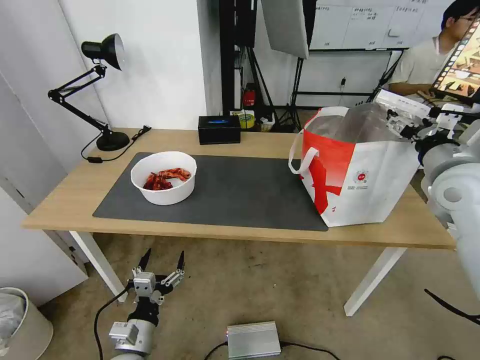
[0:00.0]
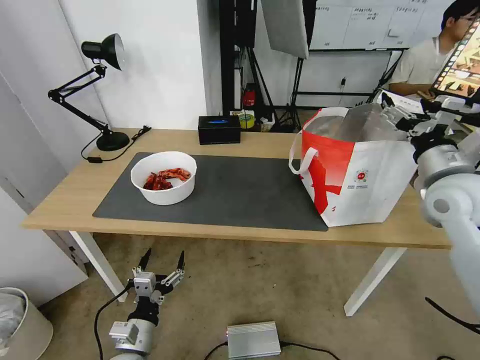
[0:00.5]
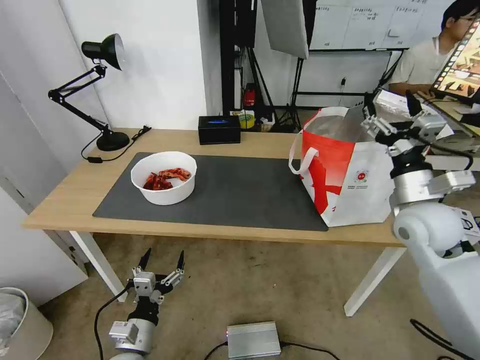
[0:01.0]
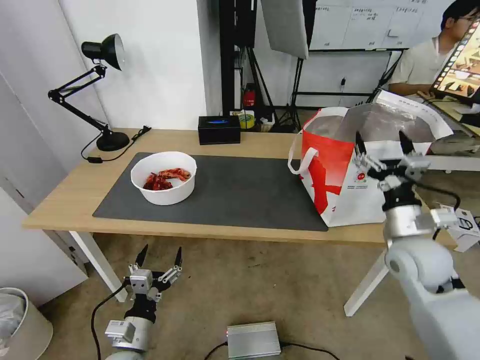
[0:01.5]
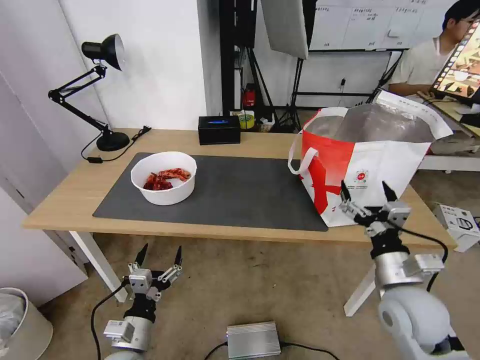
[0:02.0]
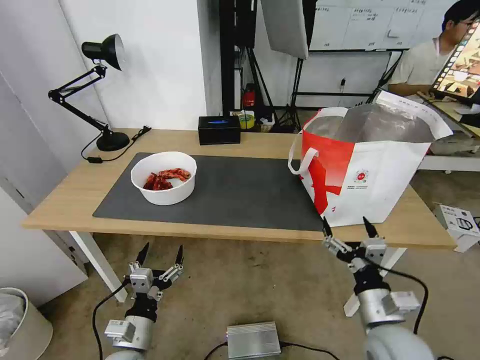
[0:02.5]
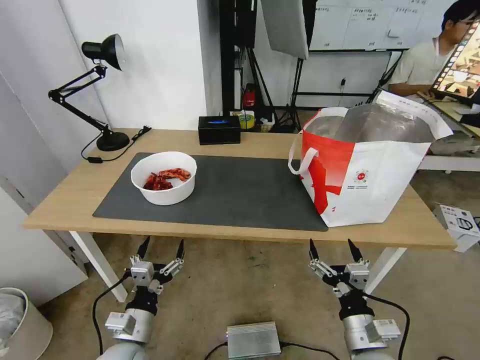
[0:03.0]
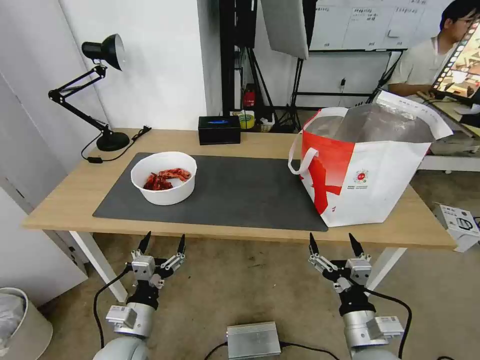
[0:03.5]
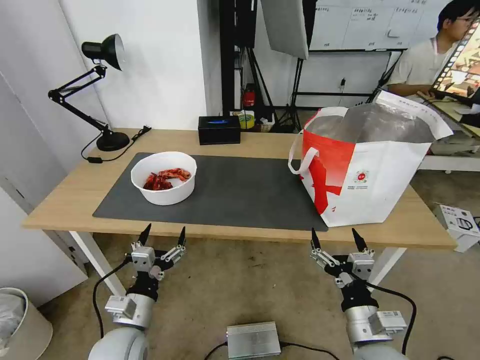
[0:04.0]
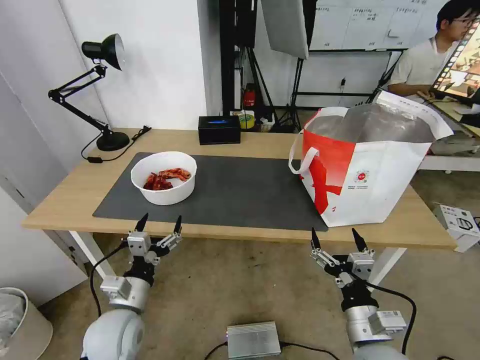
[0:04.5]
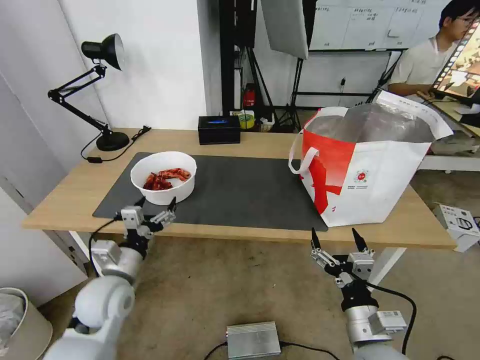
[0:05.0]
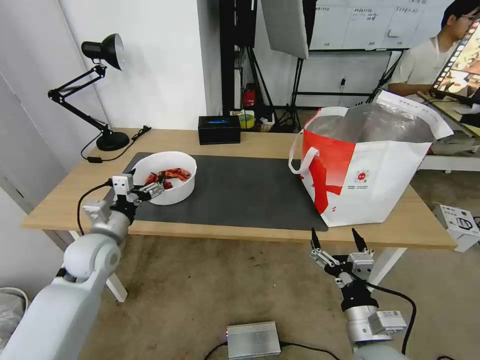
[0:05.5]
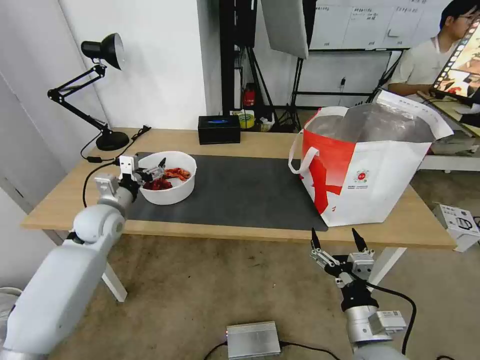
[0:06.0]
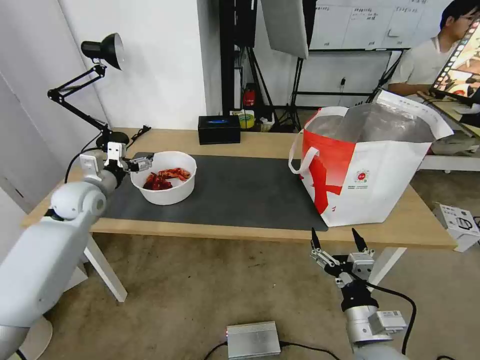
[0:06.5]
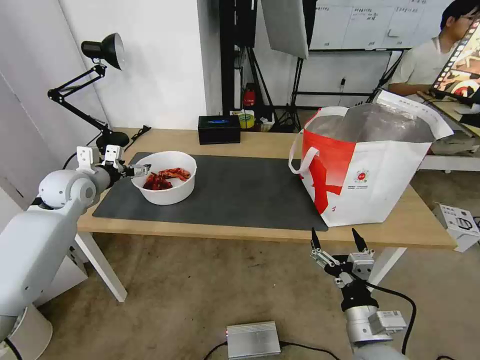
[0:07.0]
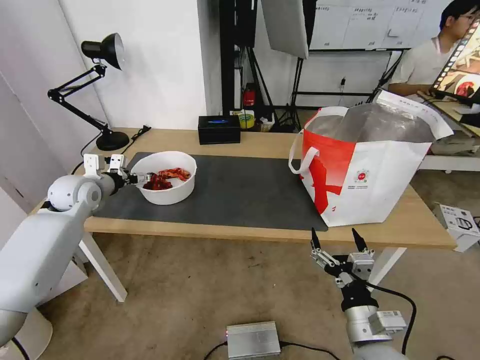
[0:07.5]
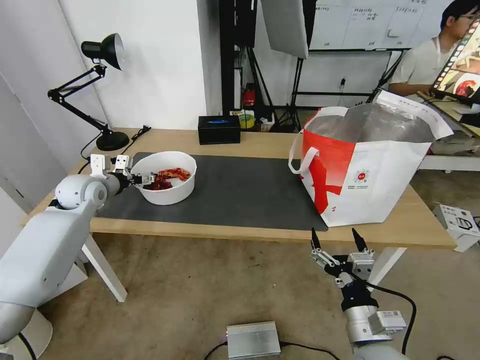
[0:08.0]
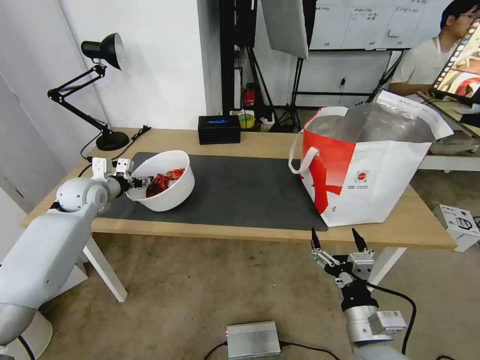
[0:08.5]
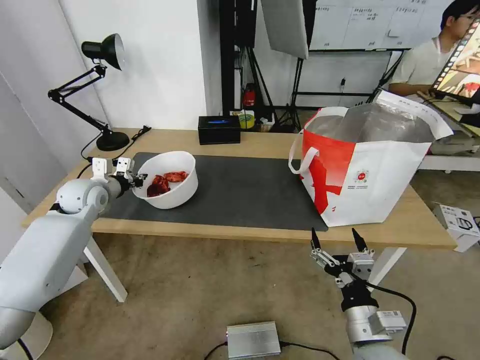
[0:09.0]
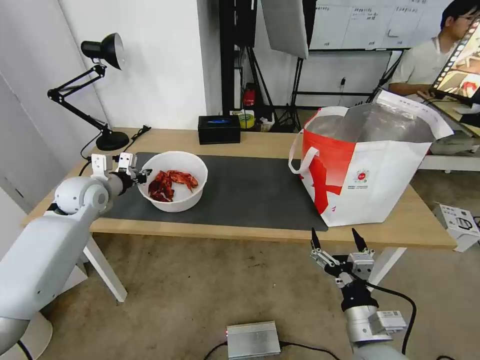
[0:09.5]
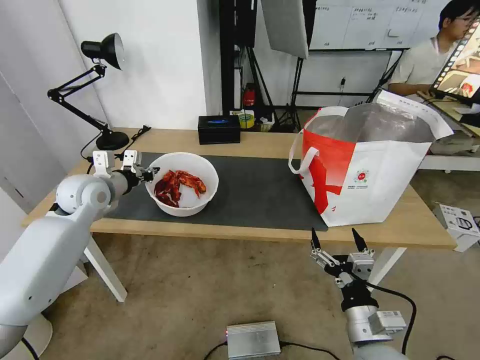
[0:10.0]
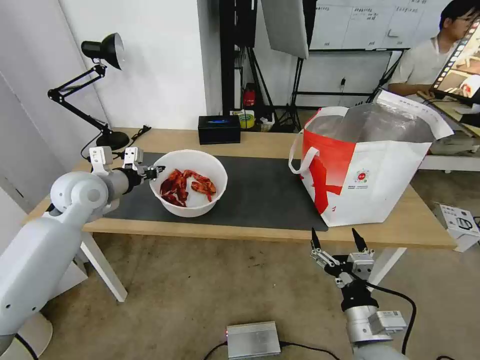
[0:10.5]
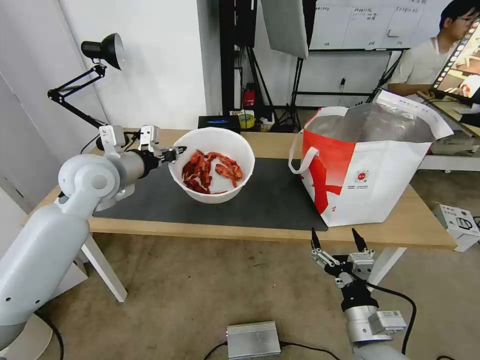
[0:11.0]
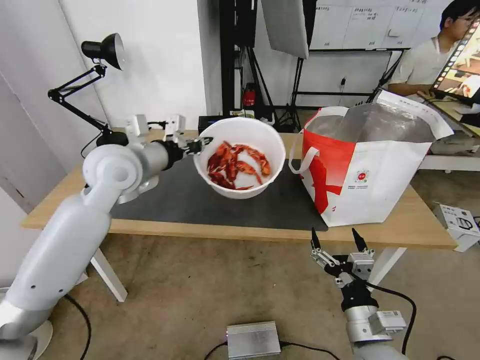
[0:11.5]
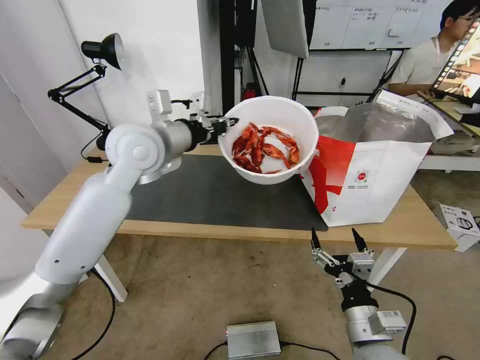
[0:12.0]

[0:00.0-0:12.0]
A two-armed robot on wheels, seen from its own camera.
Task of the whole recording: Pick up the trash from the table and place it into the takeout bag.
0:00.0 to 0:02.0: The right gripper heads downward, backward and to the left, covering roughly 25 cm.
0:02.0 to 0:04.0: The right gripper shifts roughly 10 cm backward, to the left and downward. The left gripper moves about 5 cm.
0:04.0 to 0:06.0: The left gripper moves forward, upward and to the left, some 25 cm.
0:06.0 to 0:08.0: The left gripper goes about 10 cm forward and to the left.
0:08.0 to 0:10.0: The left gripper changes place by some 5 cm, and closes its fingers.
0:10.0 to 0:12.0: The left gripper shifts approximately 20 cm to the right and upward.

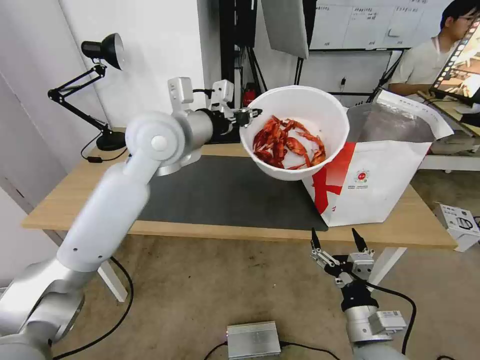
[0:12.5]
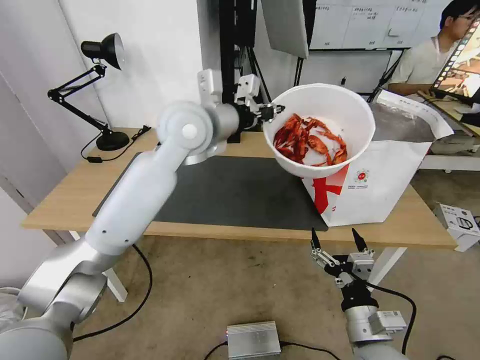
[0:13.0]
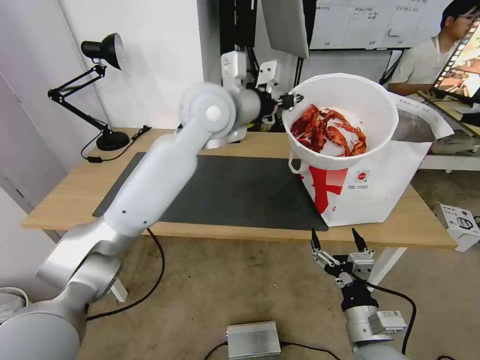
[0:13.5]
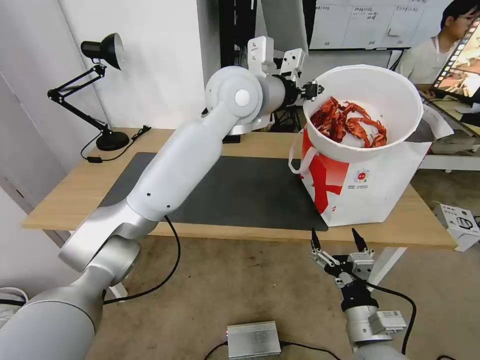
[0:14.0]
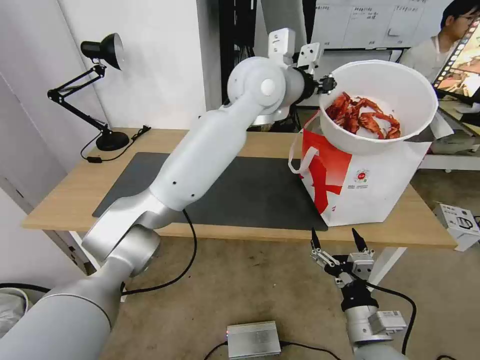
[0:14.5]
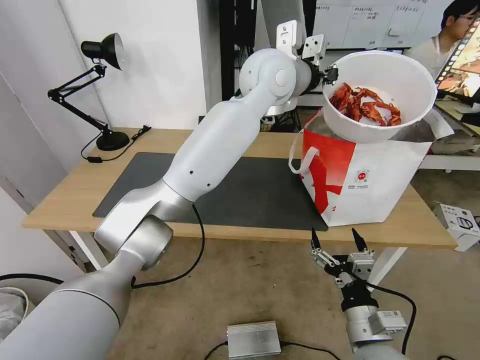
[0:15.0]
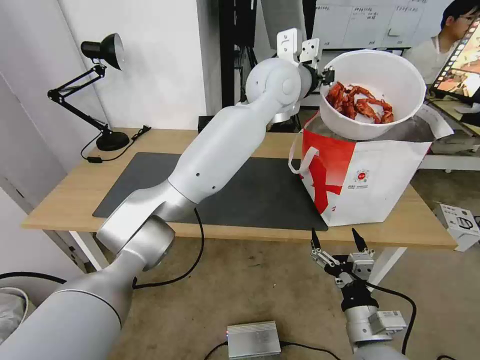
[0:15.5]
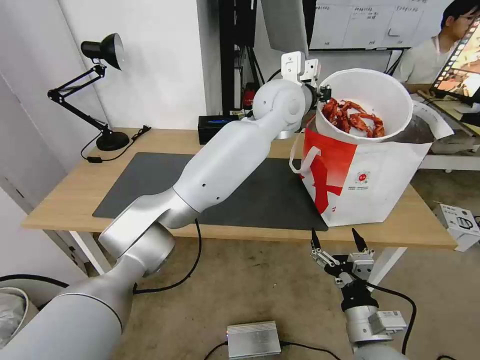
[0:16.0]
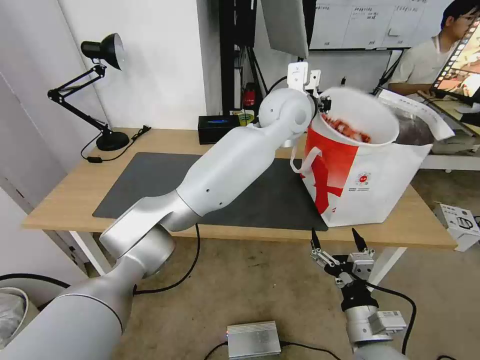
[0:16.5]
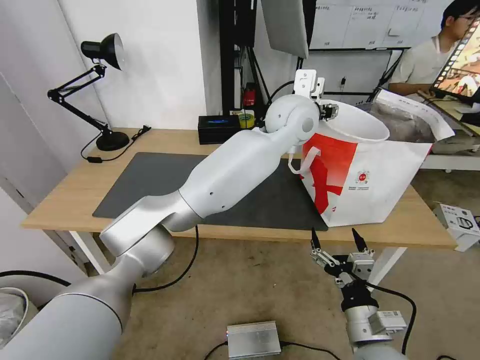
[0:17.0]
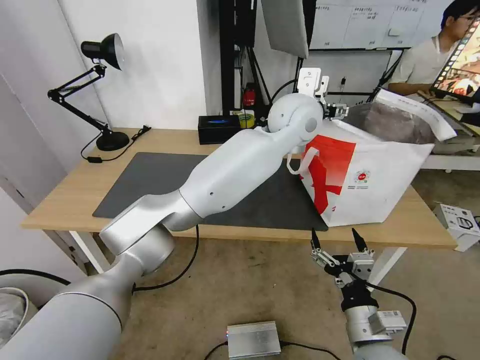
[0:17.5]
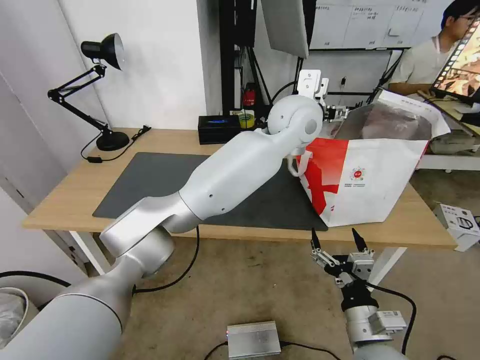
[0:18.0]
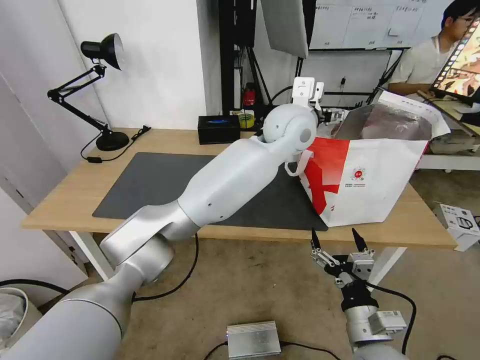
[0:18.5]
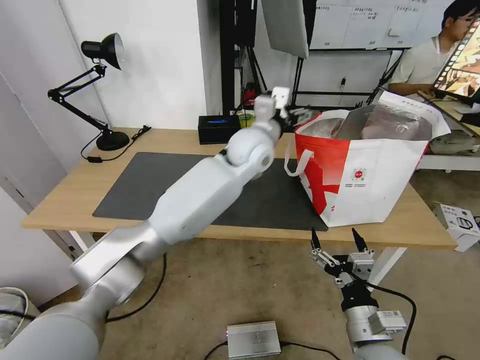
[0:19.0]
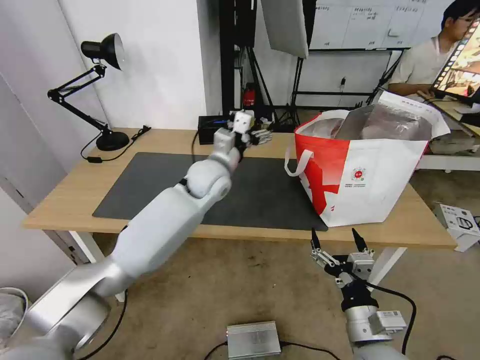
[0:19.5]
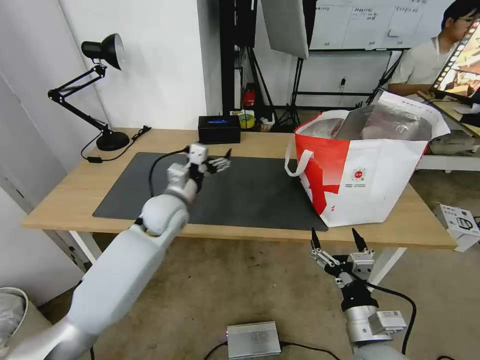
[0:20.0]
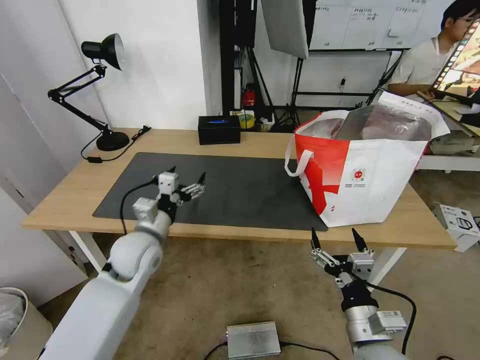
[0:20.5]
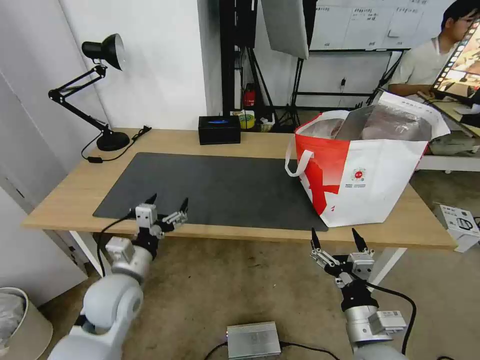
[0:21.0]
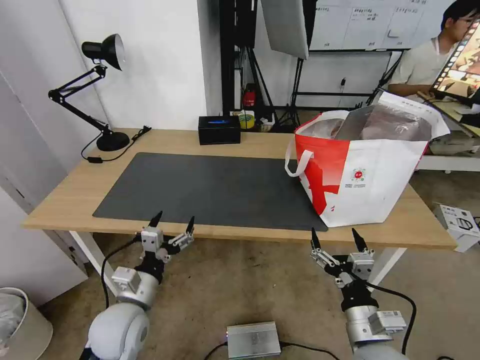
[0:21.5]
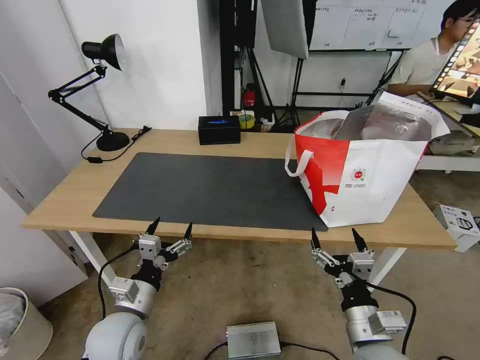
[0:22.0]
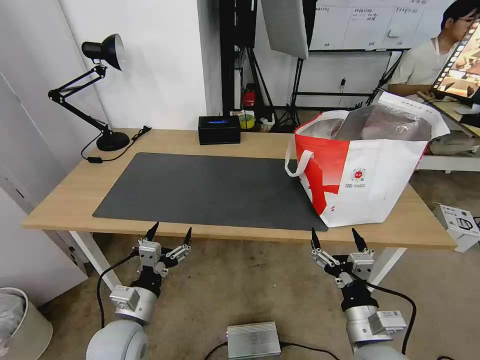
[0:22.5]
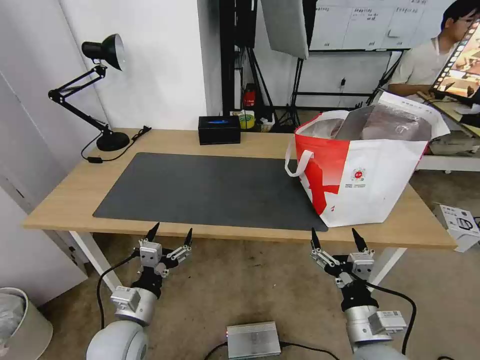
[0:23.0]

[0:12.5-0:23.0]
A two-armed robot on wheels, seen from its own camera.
Task of the whole recording: Pick up the trash from the table and place it into the takeout bag.
0:12.5 to 0:14.5: The left gripper shifts some 15 cm to the right.
0:14.5 to 0:16.5: The left gripper shifts roughly 10 cm to the right and downward.
0:16.5 to 0:19.0: The left gripper heads downward and to the left, covering about 10 cm, and opens its fingers.
0:19.0 to 0:21.0: The left gripper heads to the left, backward and downward, covering some 40 cm.
0:21.0 to 0:23.0: The left gripper moves backward and downward, roughly 10 cm.

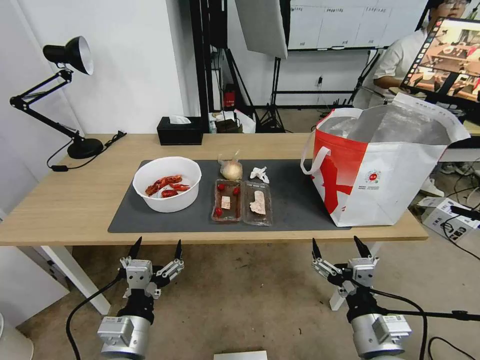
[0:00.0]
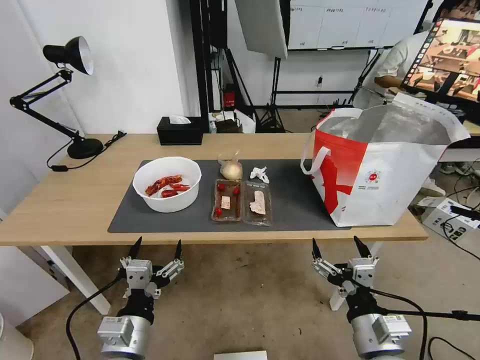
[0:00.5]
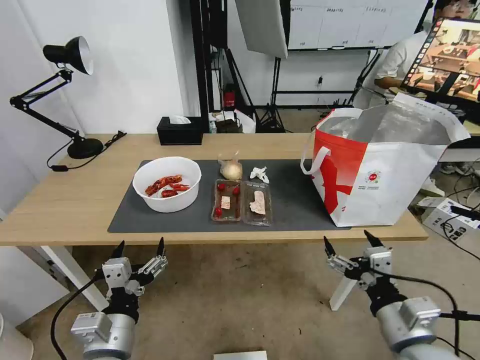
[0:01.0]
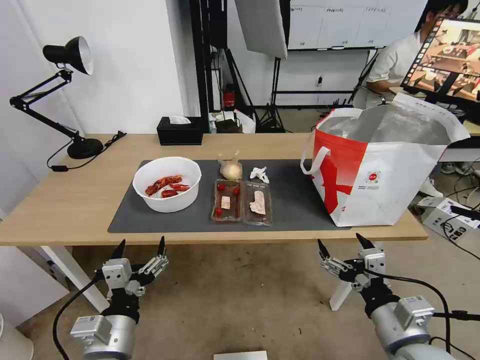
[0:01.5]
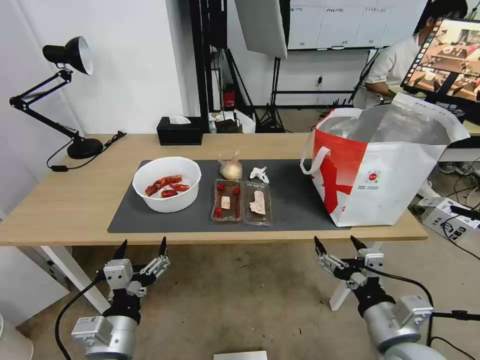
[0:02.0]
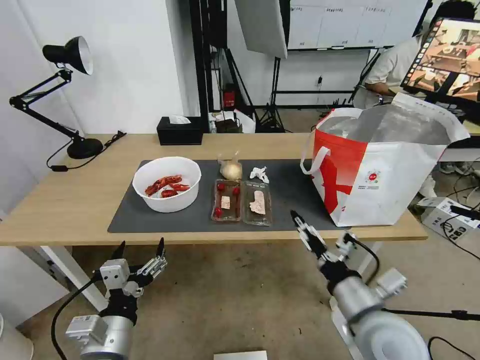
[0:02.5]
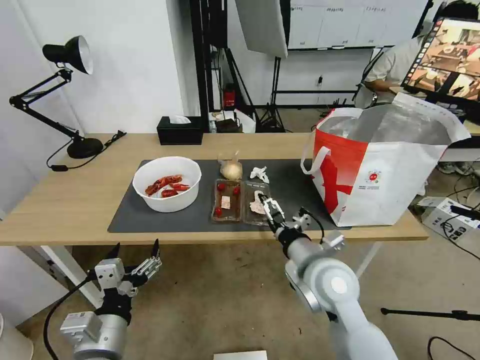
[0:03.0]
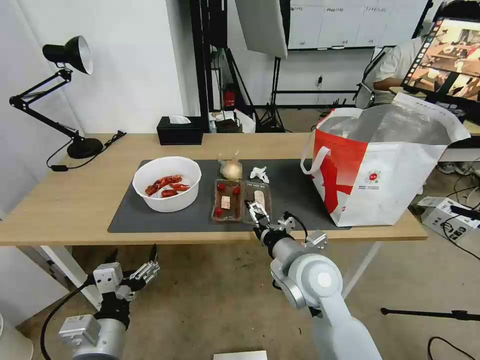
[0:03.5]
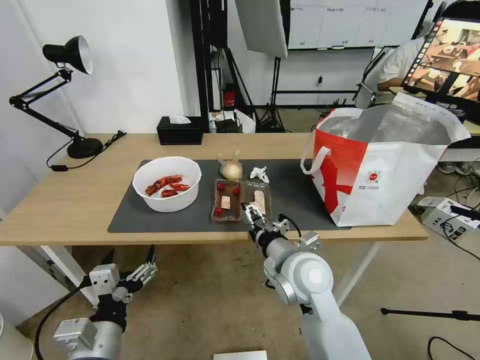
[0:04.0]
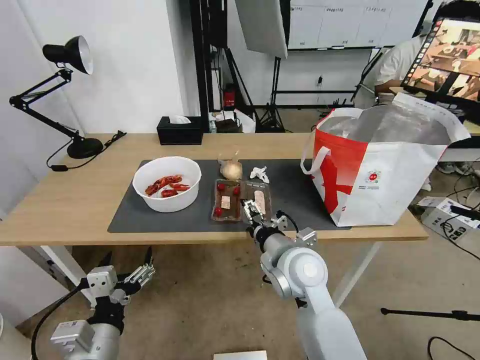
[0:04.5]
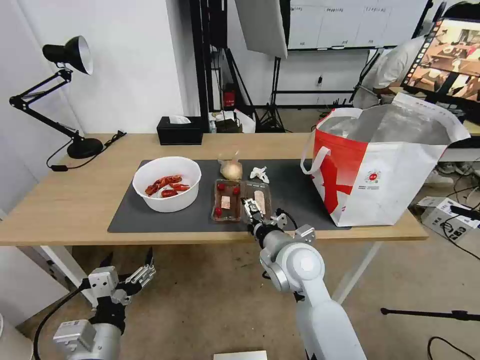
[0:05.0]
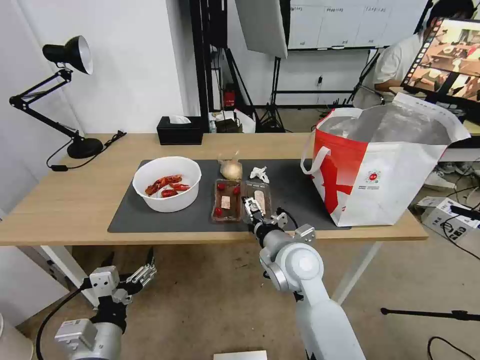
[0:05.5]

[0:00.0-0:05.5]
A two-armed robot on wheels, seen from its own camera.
Task of the whole recording: Pick up the trash from the table and place it into the takeout bag.
0:02.0 to 0:03.5: The right gripper travels forward and to the left by roughly 20 cm.
0:03.5 to 0:05.5: The grippers stay close to where they were, moving slightly.
